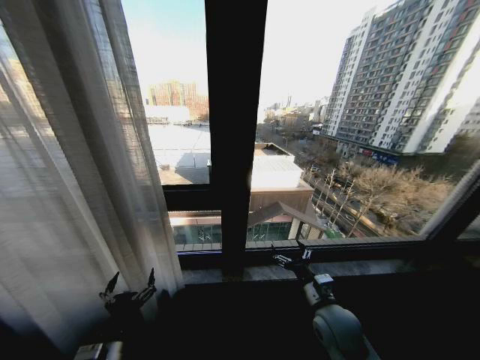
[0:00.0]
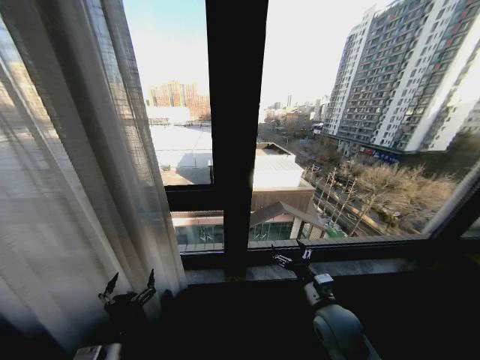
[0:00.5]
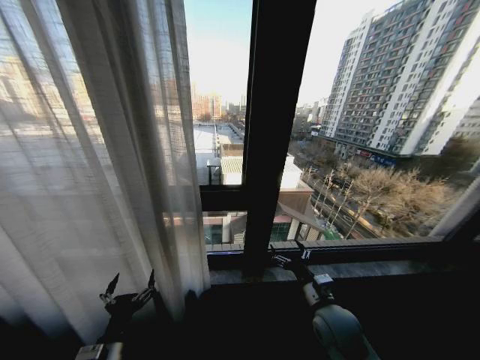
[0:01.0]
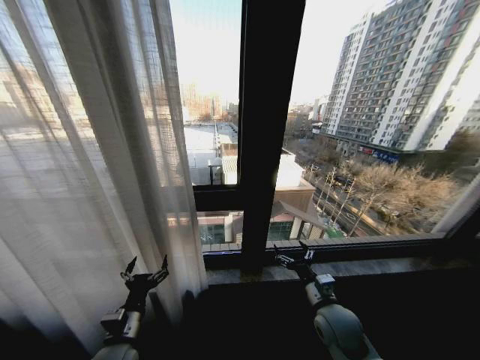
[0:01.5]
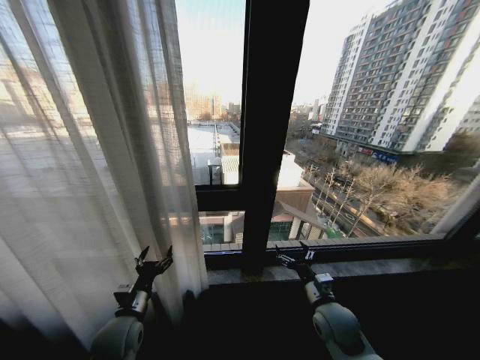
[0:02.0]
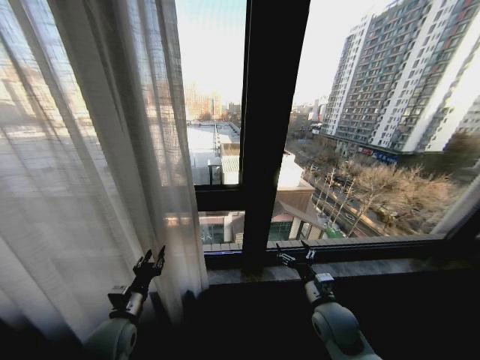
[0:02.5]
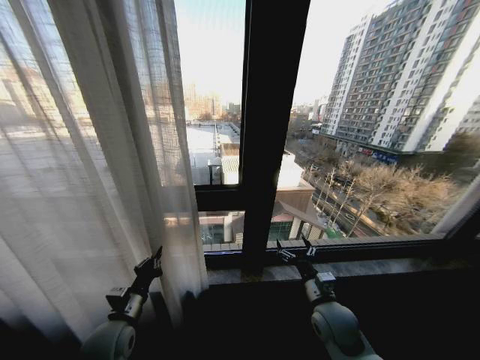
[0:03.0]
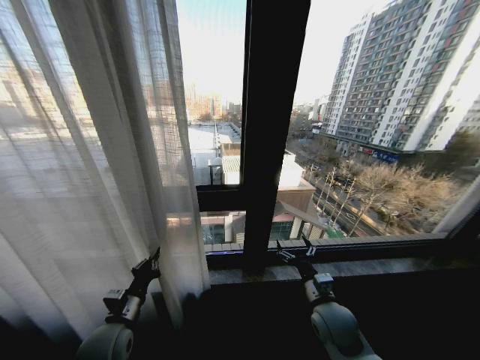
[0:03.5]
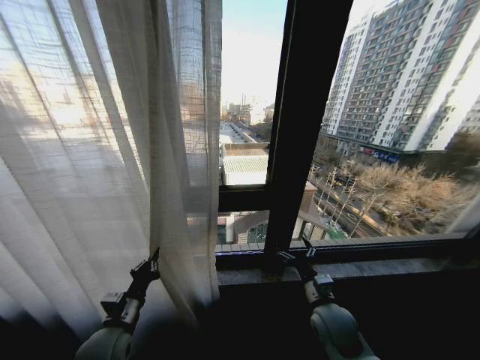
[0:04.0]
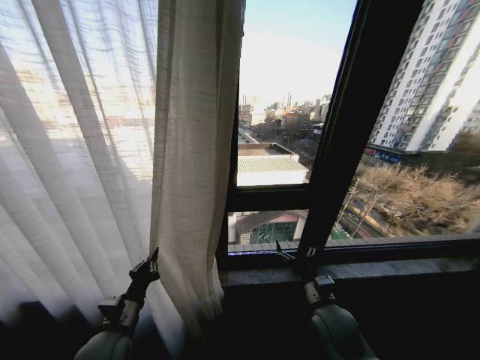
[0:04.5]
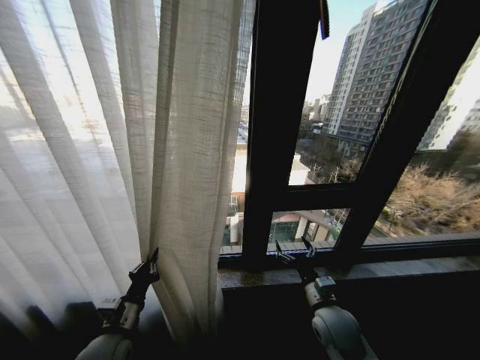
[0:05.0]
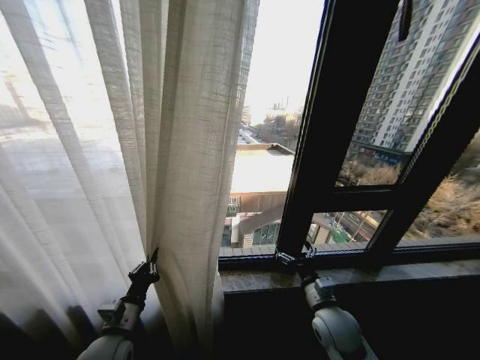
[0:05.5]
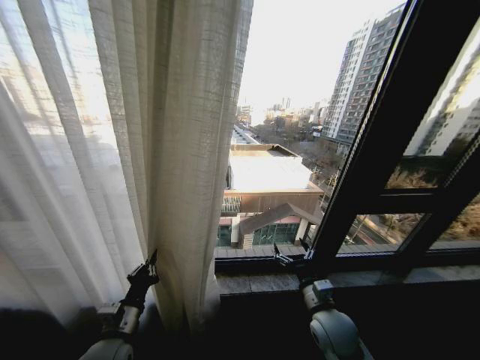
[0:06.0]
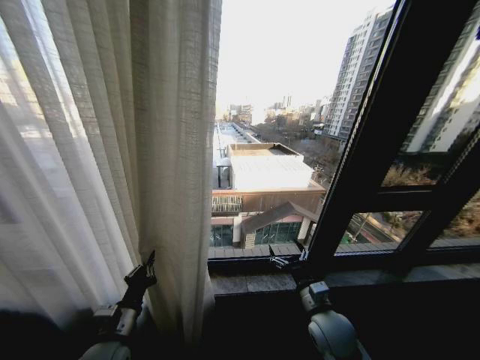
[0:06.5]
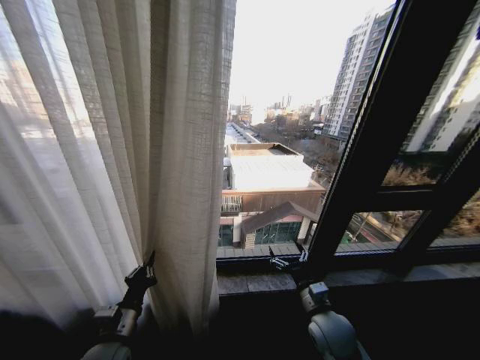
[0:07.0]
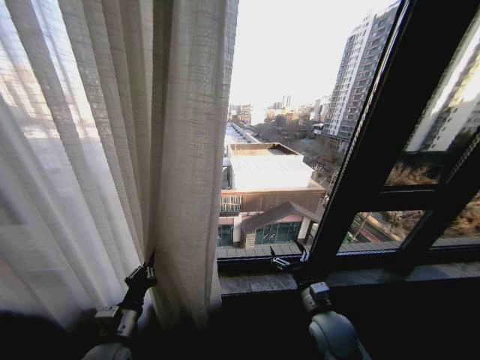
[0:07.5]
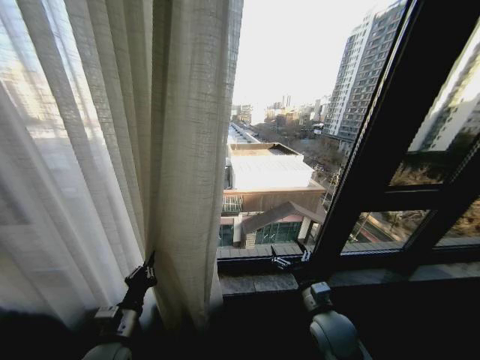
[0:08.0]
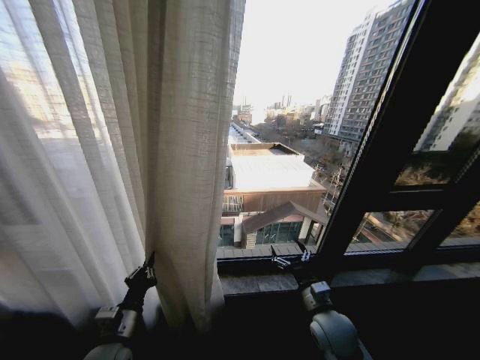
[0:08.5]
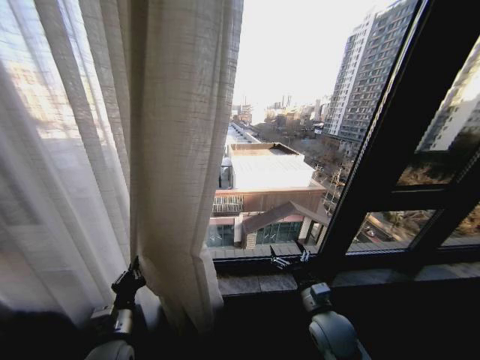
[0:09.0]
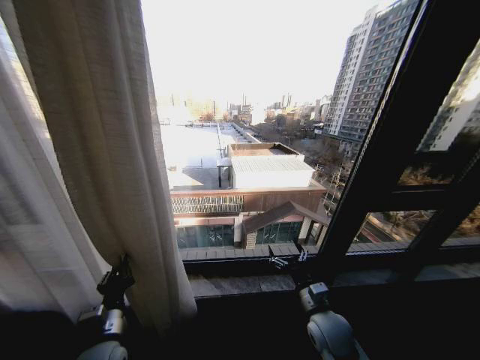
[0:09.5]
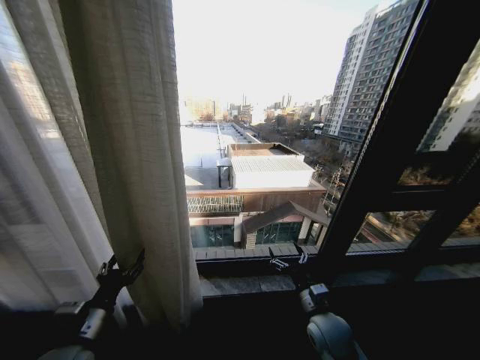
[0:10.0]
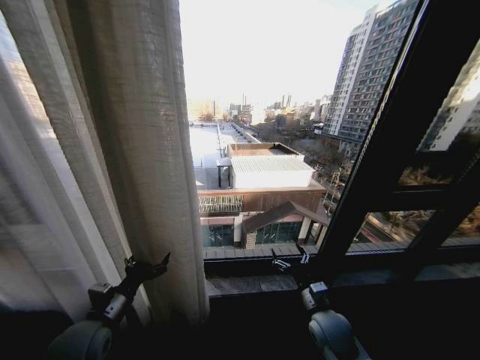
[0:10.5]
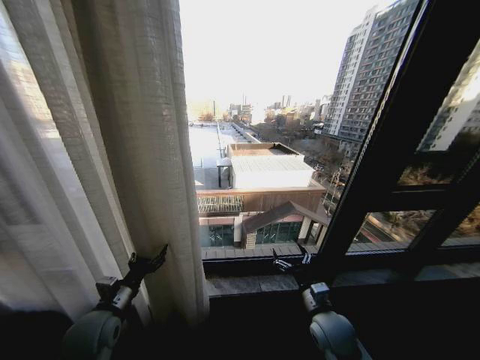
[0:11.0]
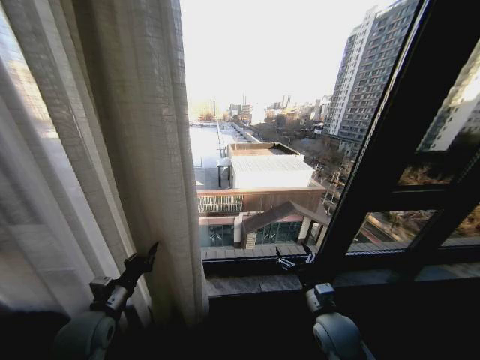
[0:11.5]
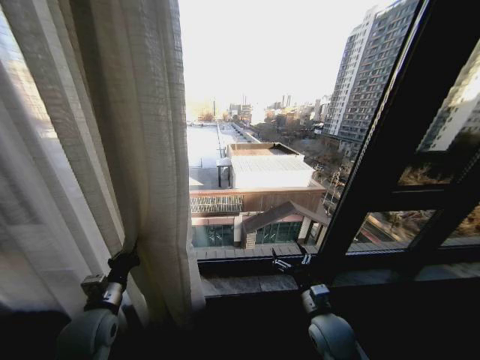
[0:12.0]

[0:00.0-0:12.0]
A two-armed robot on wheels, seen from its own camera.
Task of the whole recording: Open the curtains by pulling them apart, changing their state from closed to fully open.
0:00.0 to 0:02.0: The left gripper moves forward, some 10 cm.
0:02.0 to 0:04.0: The left gripper closes.
0:06.0 to 0:08.0: Both grippers stay about where they are.
0:08.0 to 0:10.0: The left gripper moves upward, roughly 5 cm, and opens its fingers.
0:10.0 to 0:12.0: The left gripper shifts approximately 5 cm forward, and closes up.

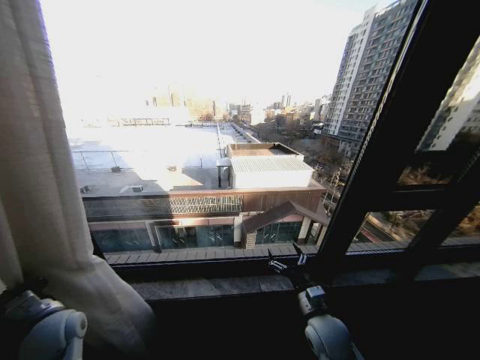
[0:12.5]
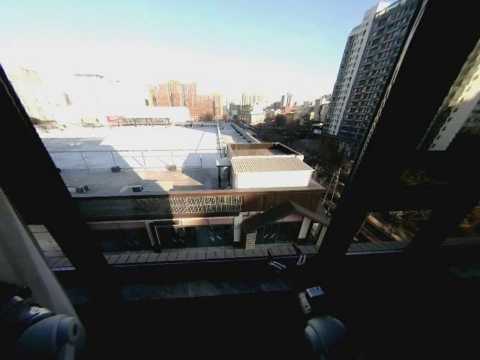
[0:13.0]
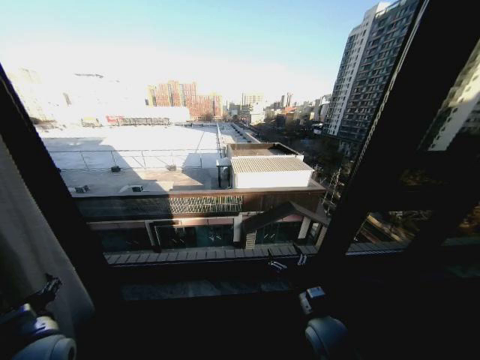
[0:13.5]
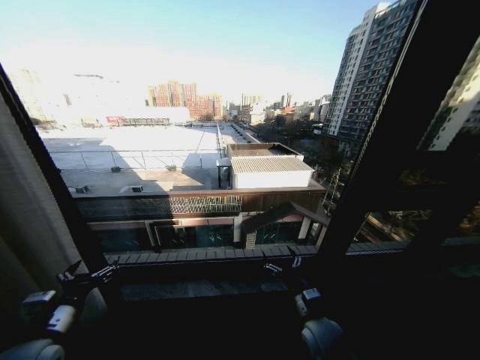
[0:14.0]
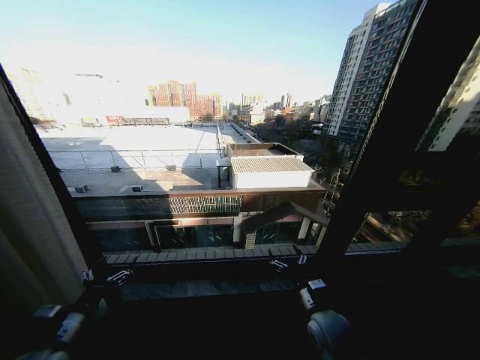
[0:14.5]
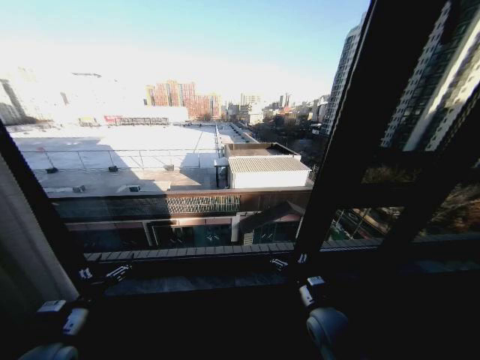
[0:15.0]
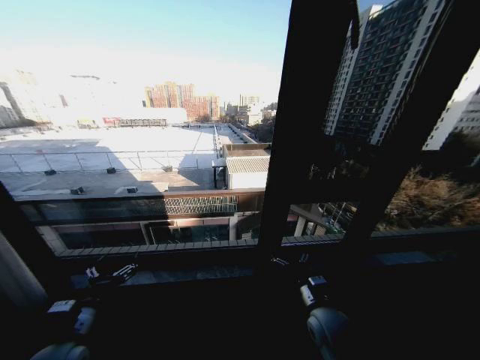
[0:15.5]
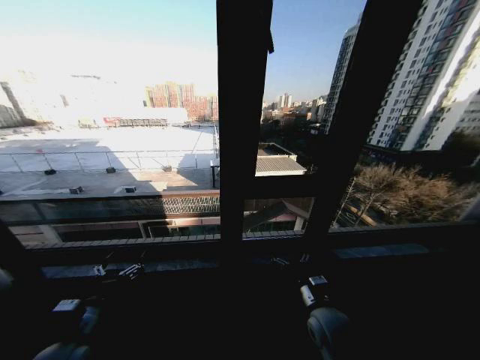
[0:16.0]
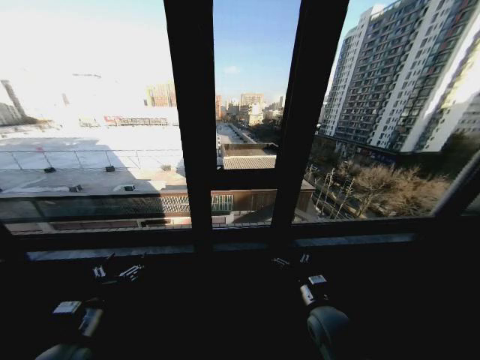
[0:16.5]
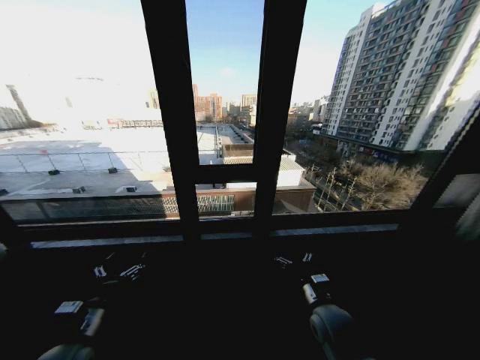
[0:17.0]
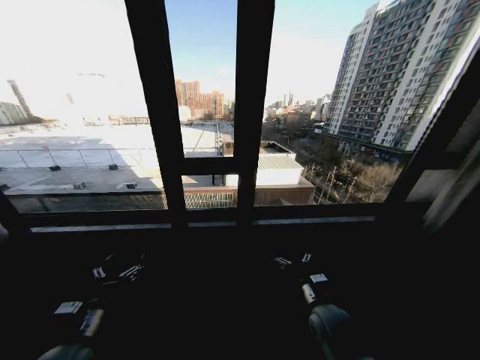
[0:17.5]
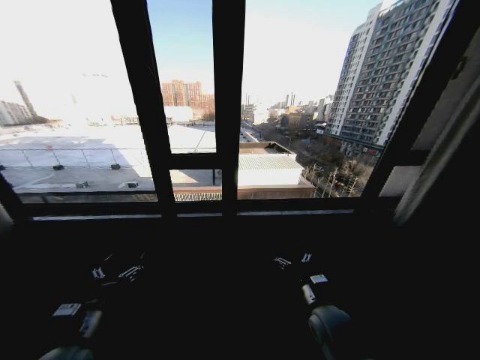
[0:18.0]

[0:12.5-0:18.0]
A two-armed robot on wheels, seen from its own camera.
Task of the whole recording: Open the curtains by pulling them apart, changing their state from closed to fully open.
0:12.5 to 0:14.5: The left gripper travels backward by roughly 5 cm, and opens its fingers.

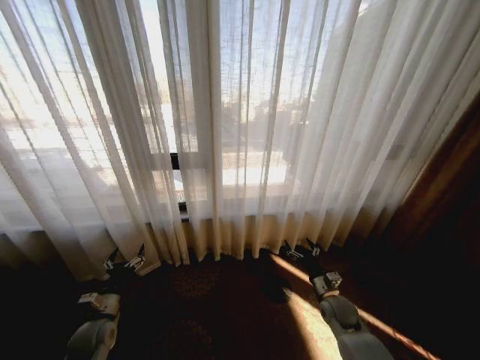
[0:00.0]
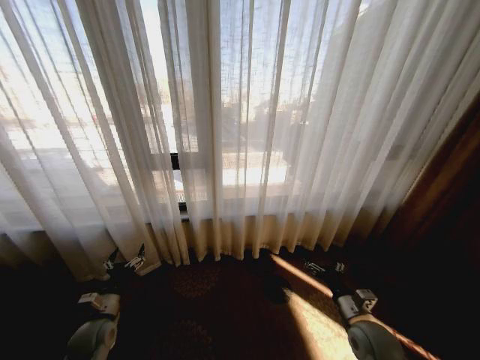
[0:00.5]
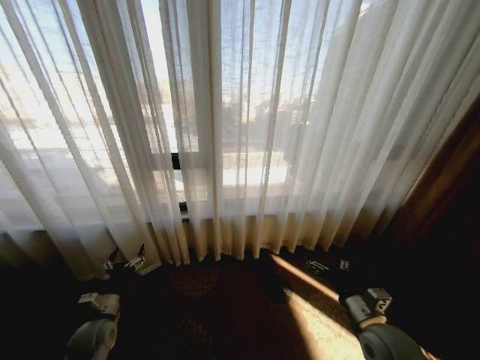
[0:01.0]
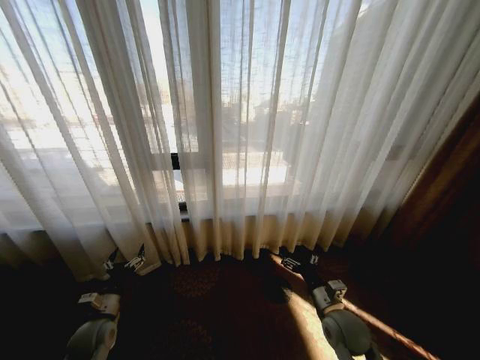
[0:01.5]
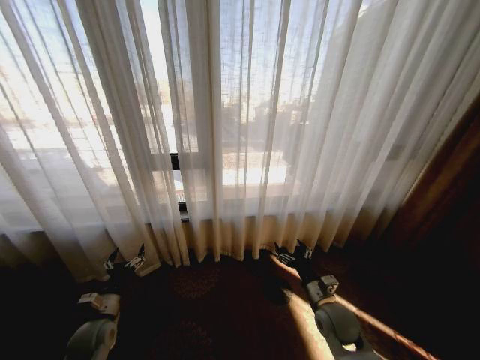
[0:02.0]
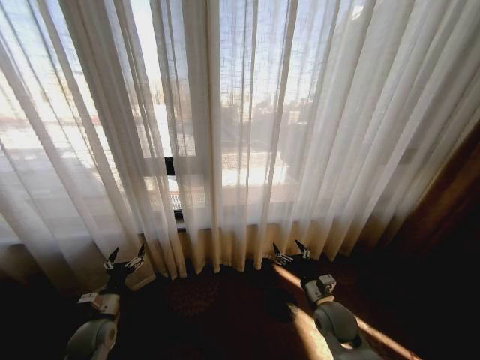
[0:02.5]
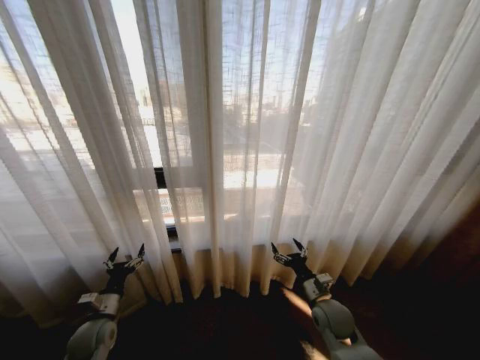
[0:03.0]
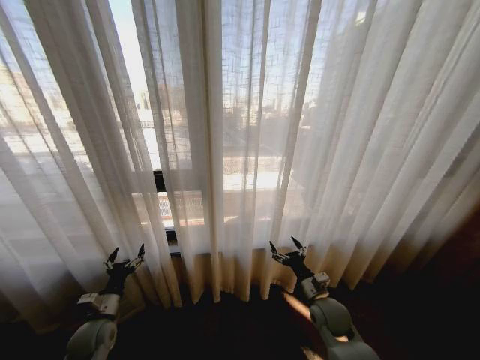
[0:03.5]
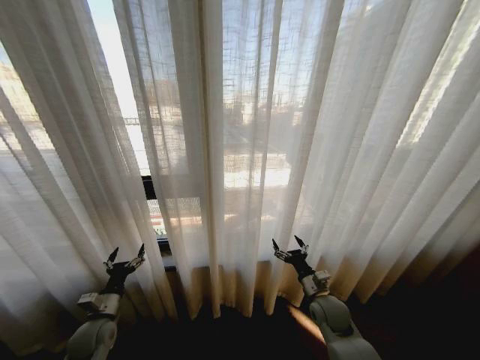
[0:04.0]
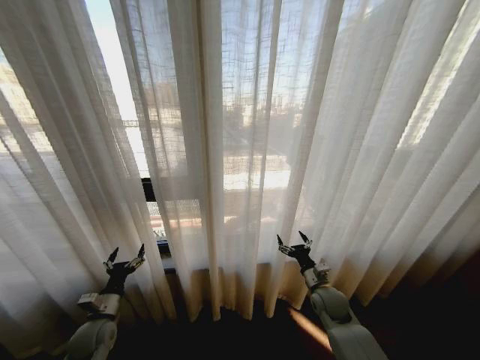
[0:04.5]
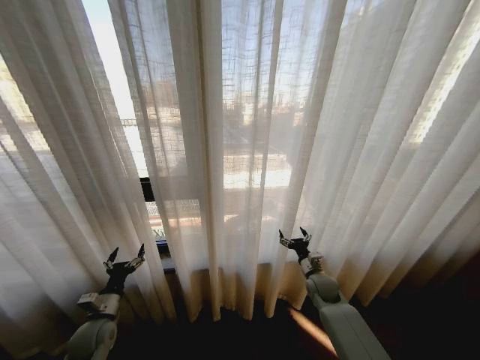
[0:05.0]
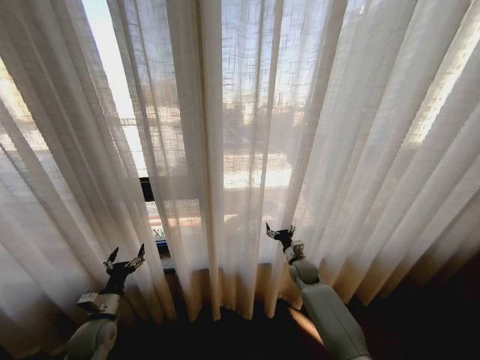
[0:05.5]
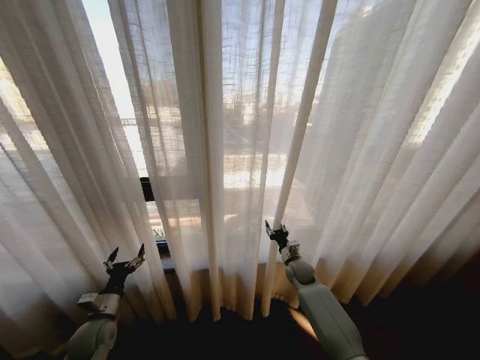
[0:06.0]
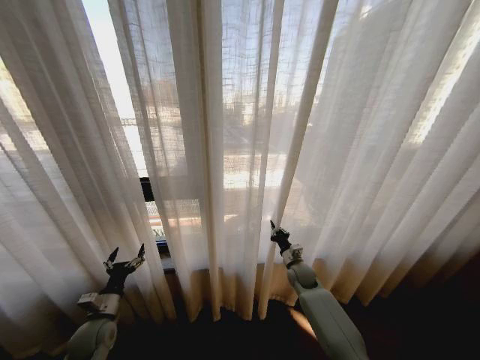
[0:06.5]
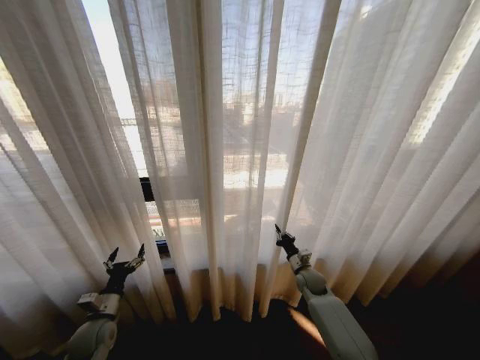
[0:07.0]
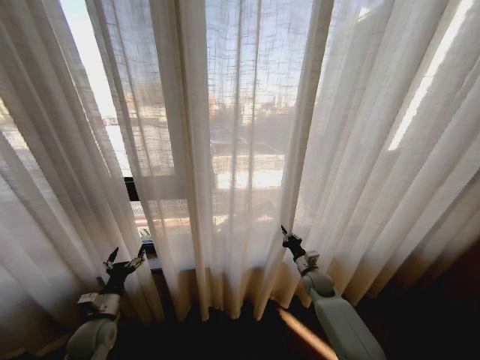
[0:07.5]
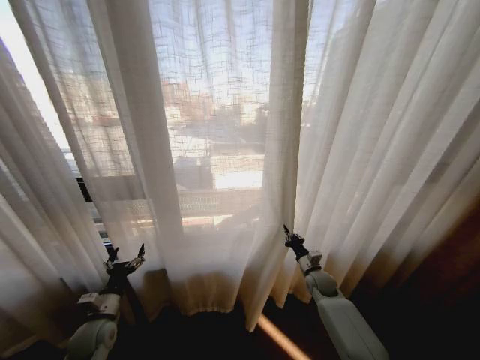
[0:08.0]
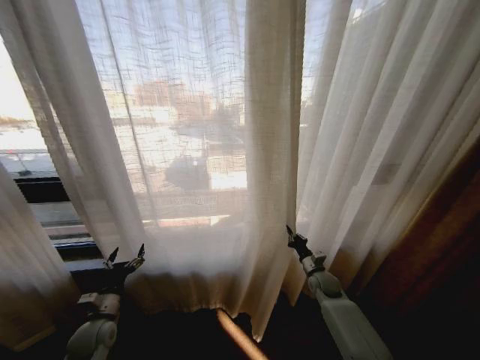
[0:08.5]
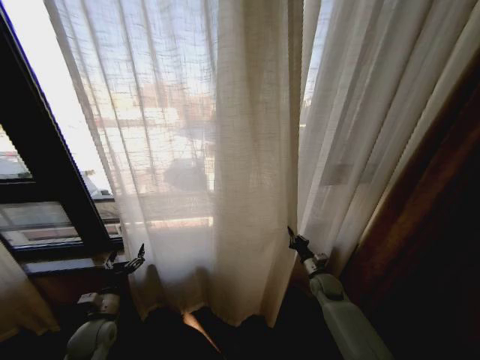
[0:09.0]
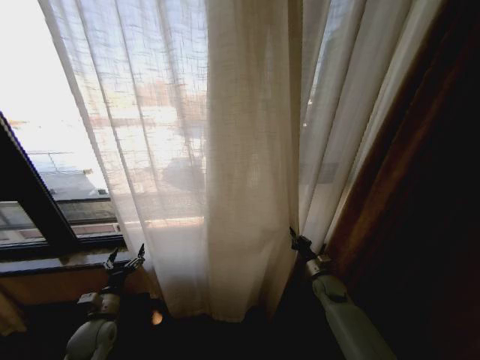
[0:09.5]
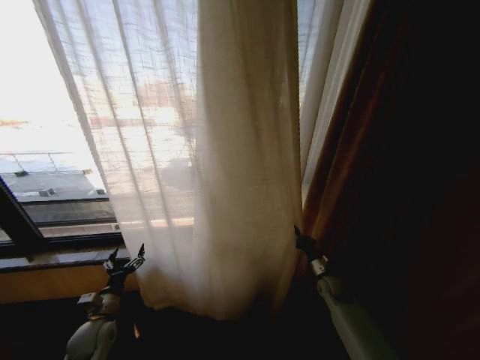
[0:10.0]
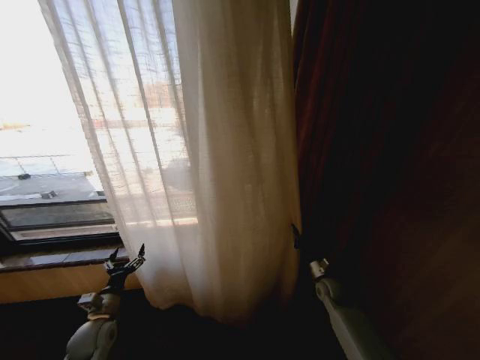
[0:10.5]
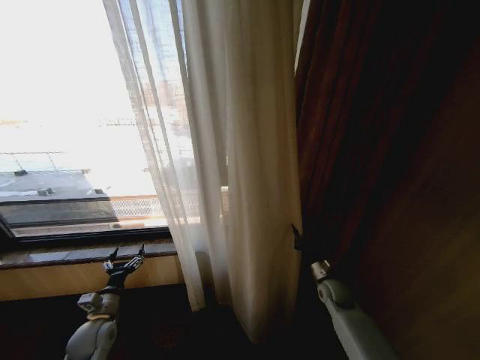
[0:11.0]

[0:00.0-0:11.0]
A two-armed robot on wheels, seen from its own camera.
Task of the whole recording: Open the curtains by pulling them apart, changing their state from closed to fully open.
0:03.5 to 0:05.5: The right gripper heads forward, covering roughly 15 cm.
0:05.5 to 0:07.5: The right gripper changes place by some 5 cm, and closes.
